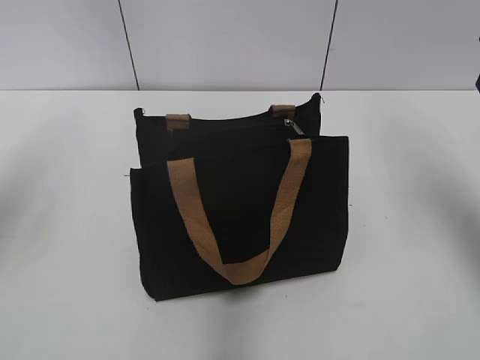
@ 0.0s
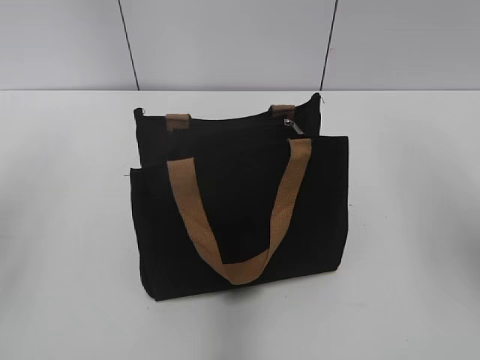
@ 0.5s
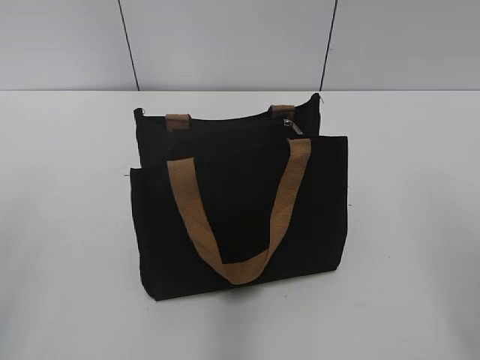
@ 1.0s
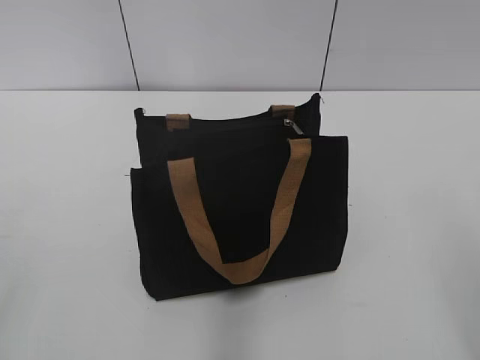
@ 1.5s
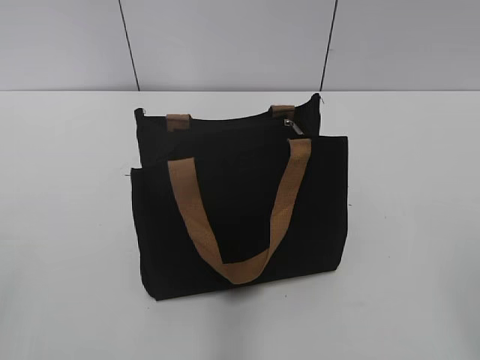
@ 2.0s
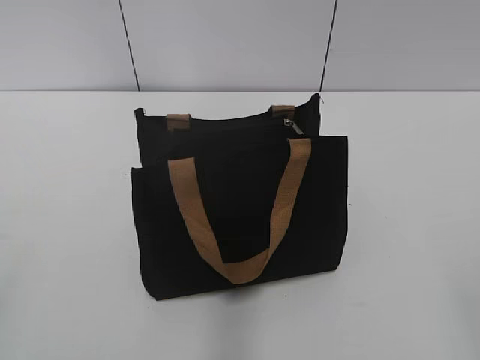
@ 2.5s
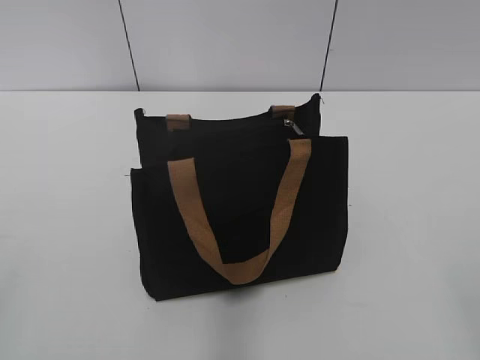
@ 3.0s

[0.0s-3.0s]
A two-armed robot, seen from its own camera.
0.0s to 1.5s: The right gripper heads backward, covering roughly 25 cm.

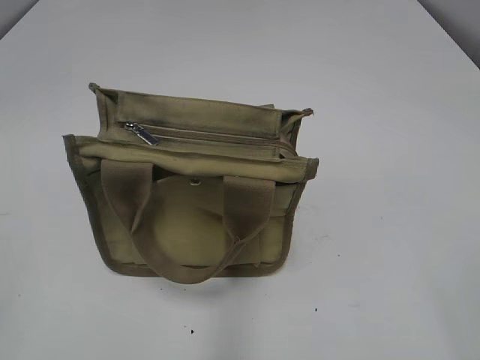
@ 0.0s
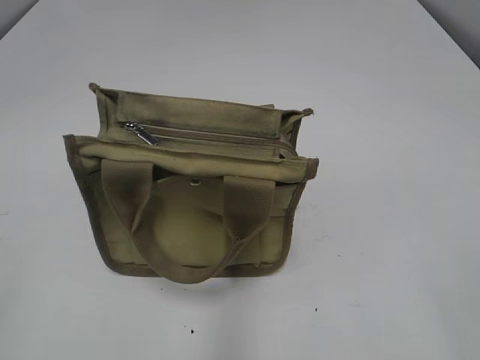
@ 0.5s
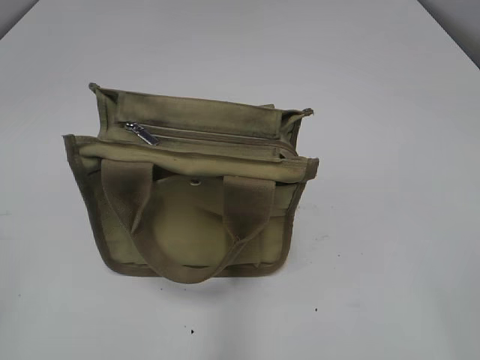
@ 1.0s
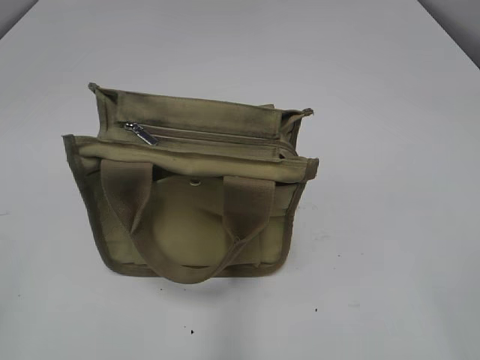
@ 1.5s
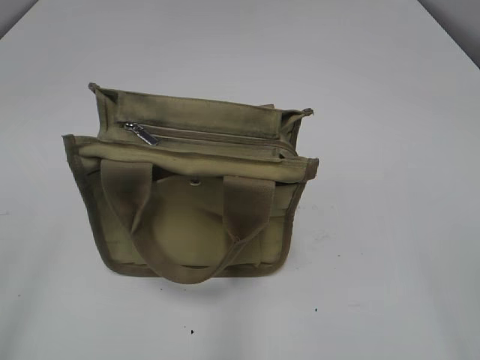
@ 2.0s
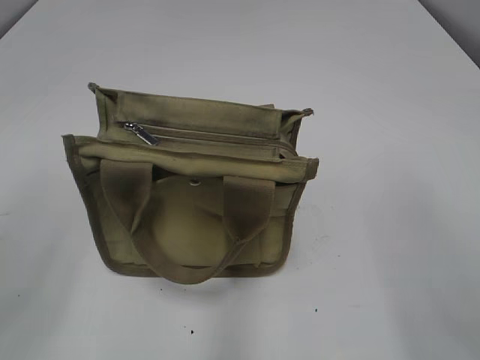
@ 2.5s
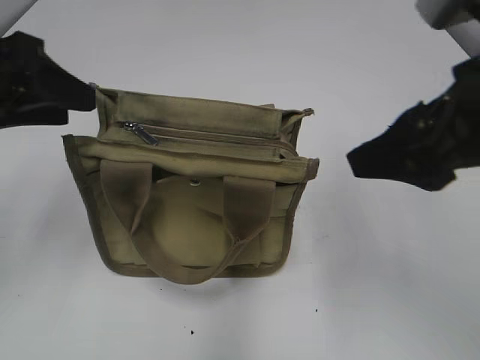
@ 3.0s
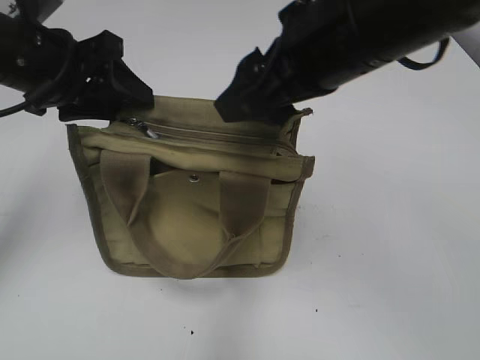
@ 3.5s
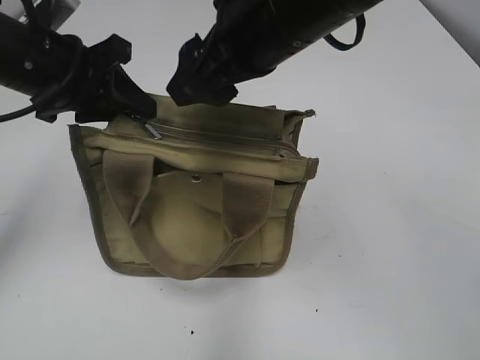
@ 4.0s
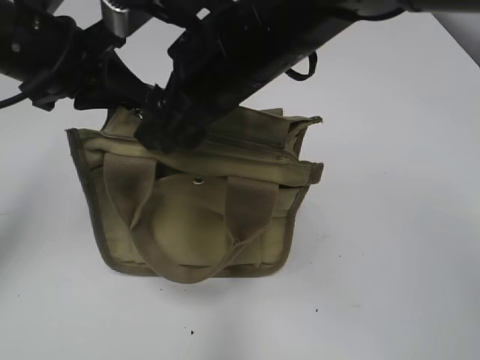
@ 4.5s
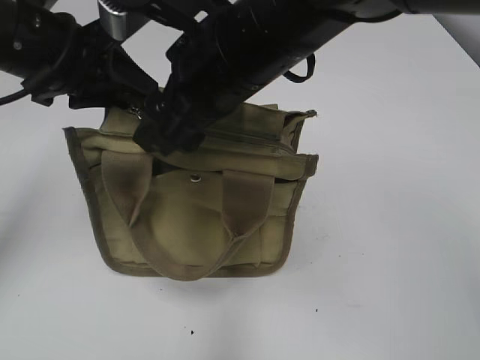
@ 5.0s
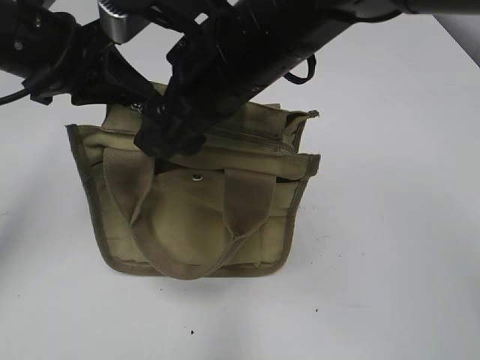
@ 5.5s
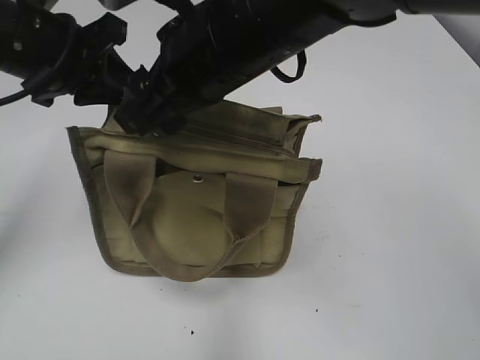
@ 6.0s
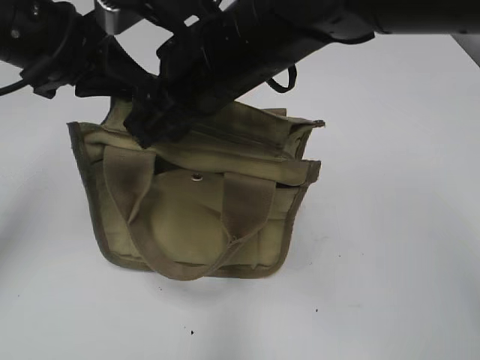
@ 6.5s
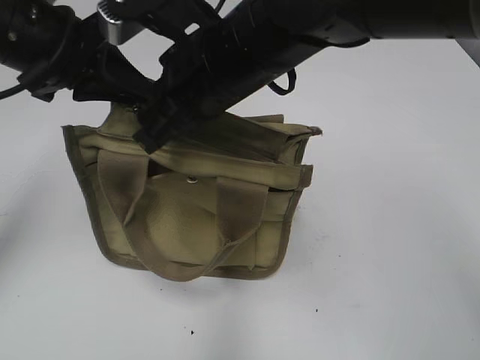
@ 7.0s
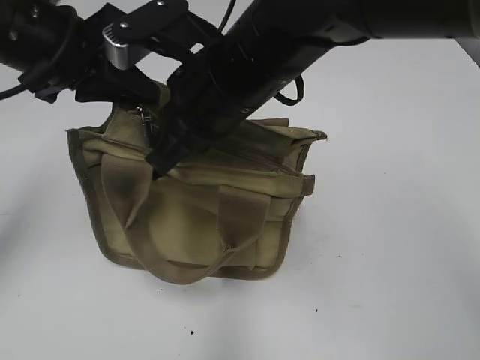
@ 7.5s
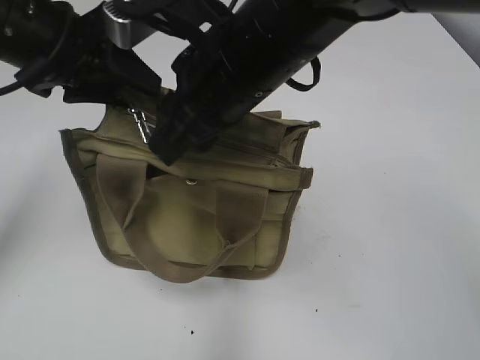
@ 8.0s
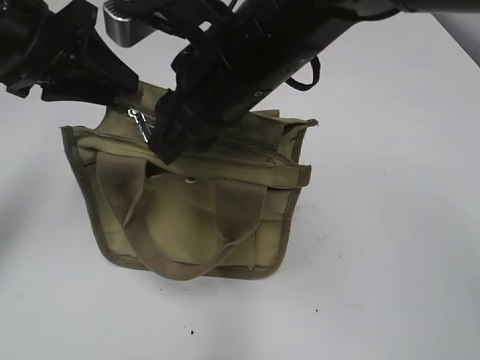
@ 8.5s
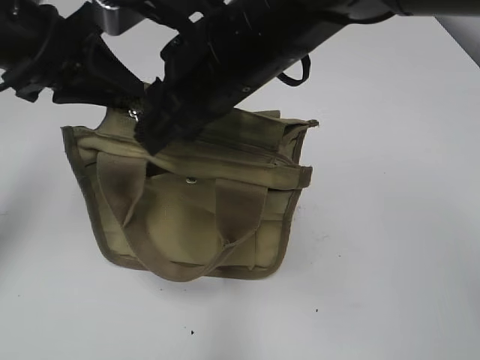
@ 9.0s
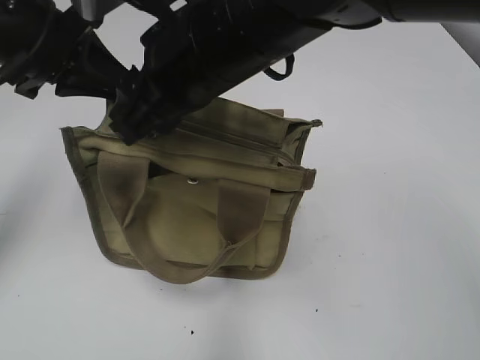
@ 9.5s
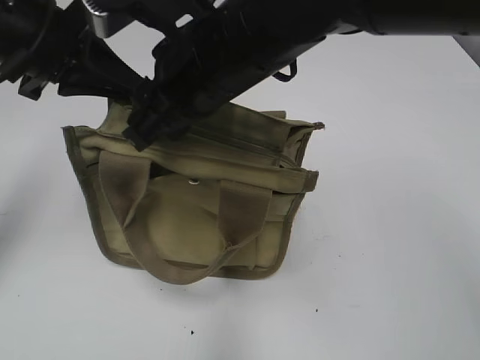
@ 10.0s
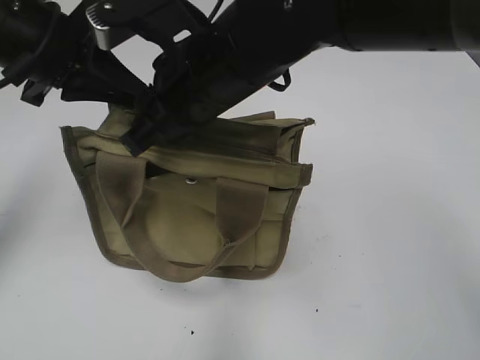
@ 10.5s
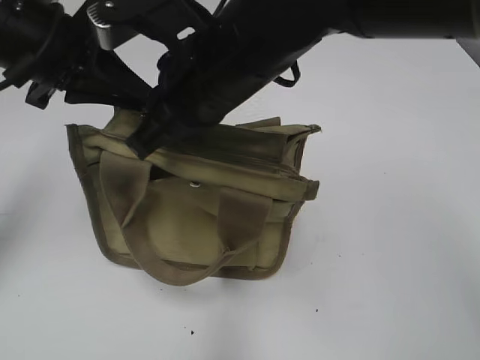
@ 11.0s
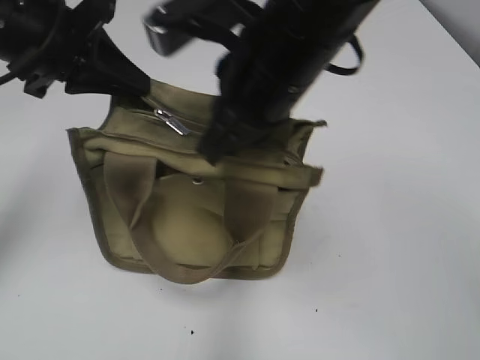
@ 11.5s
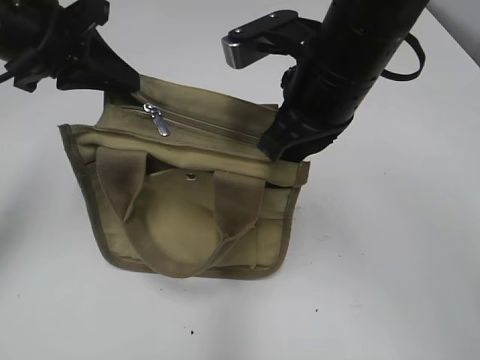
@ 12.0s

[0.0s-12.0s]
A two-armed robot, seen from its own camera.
2.0s to 4.0s: The left gripper moves forward, roughly 30 cm, and closes its fingers. The right gripper heads forward and to the left, covering some 35 cm.
4.0s to 6.0s: The left gripper closes.
6.0s to 8.0s: The left gripper opens its fingers. Meanwhile the right gripper closes up.
8.0s to 10.0s: The left gripper closes its fingers.
10.0s to 12.0s: The right gripper heads to the right, covering approximately 10 cm, and closes up.

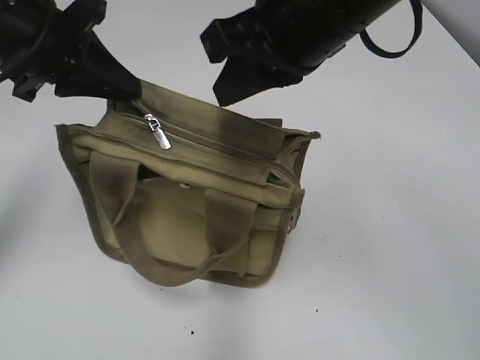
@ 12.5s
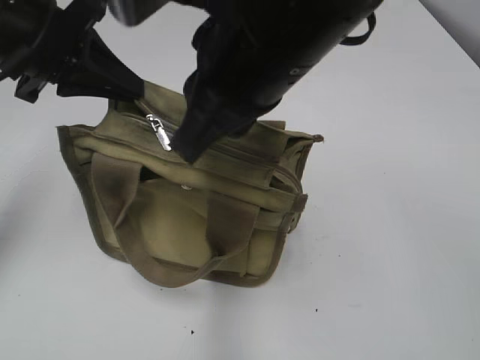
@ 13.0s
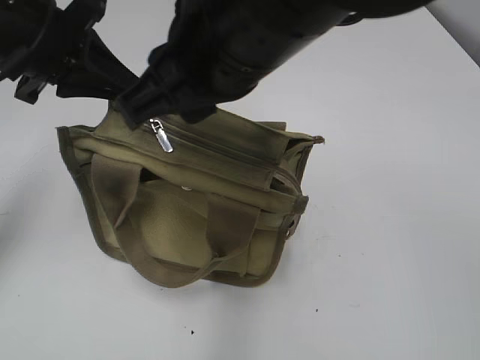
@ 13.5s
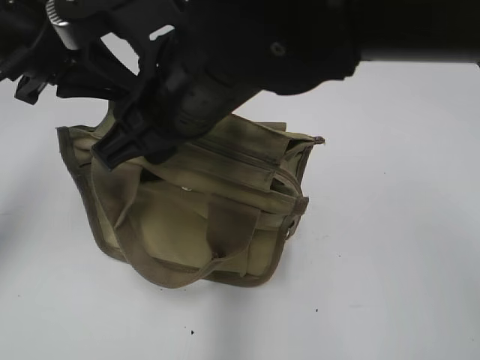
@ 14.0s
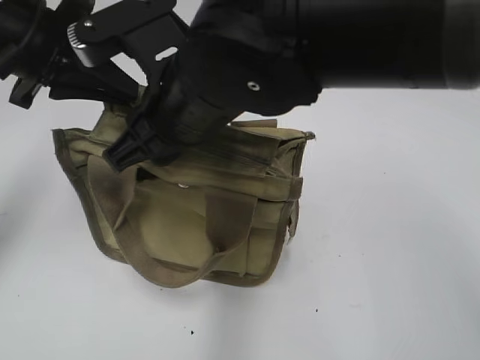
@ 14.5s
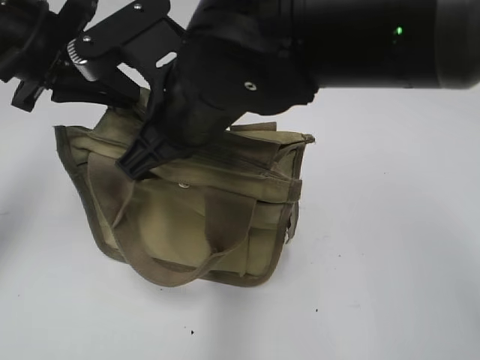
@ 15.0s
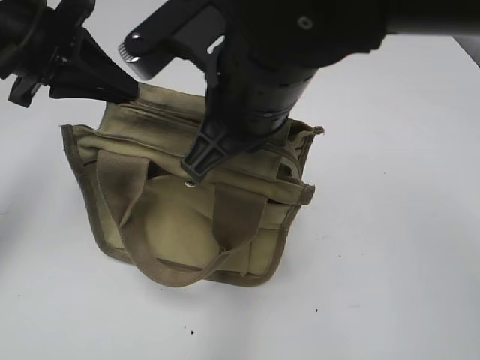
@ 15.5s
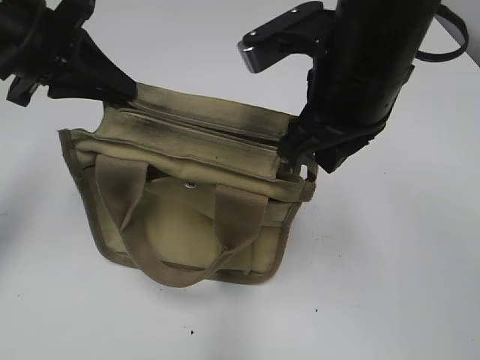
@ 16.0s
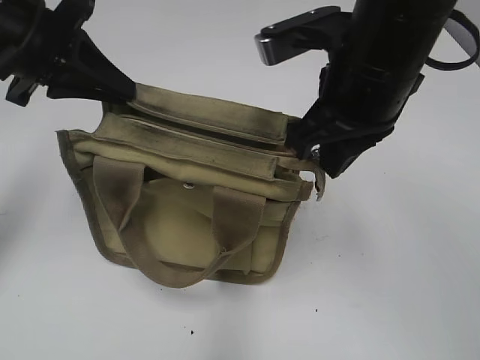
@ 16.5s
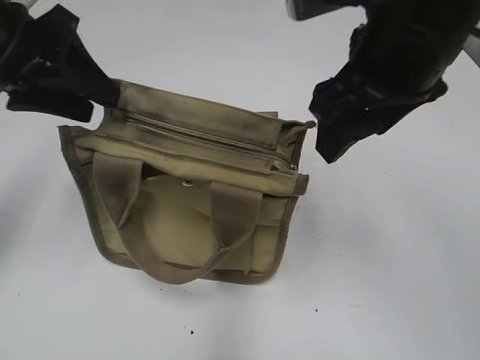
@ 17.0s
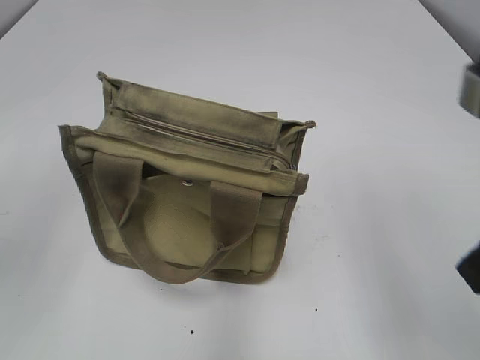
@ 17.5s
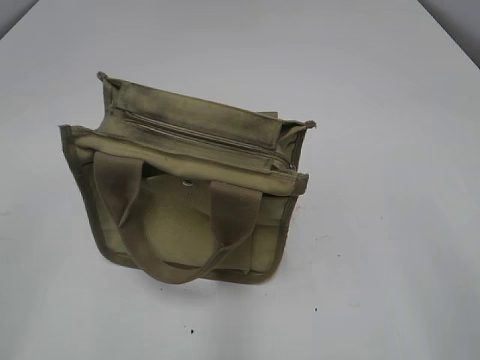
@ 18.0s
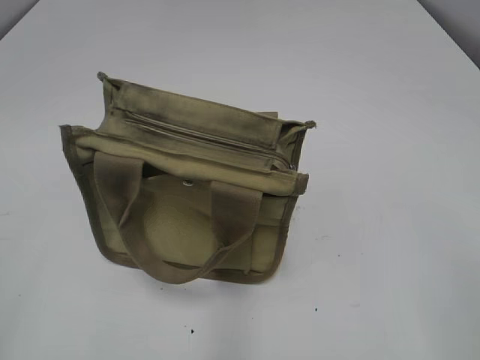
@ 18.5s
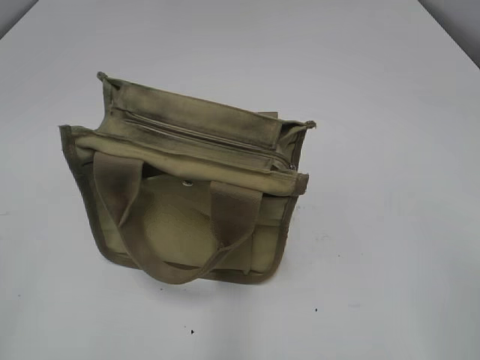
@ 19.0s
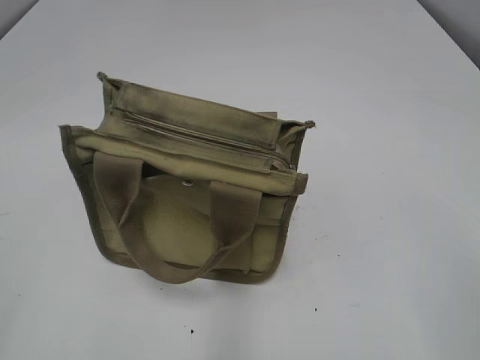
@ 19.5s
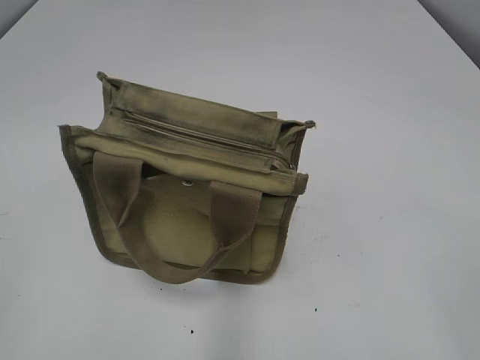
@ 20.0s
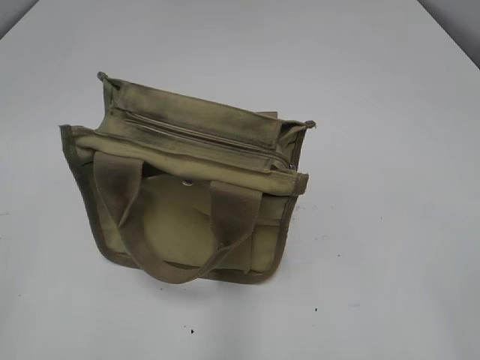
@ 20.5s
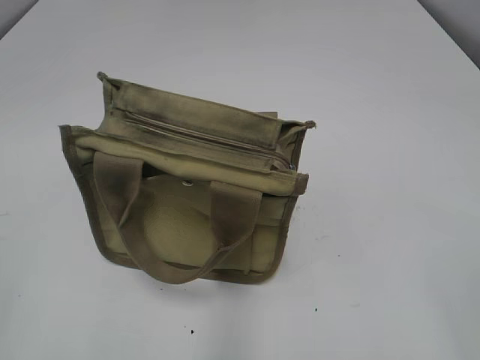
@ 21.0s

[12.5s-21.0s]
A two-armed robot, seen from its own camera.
Step, 12.5s to 16.5s: Pull open the zipper with your right hand.
12.5s to 14.5s: The right gripper is displaced to the left and downward by roughly 10 cm, and opens its fingers.
14.5s to 16.5s: The right gripper goes approximately 15 cm to the right, and closes.
16.5s to 19.0s: The right gripper moves backward and to the right, about 30 cm, and opens up. Meanwhile the left gripper heads backward, covering approximately 30 cm, and opens its fingers.

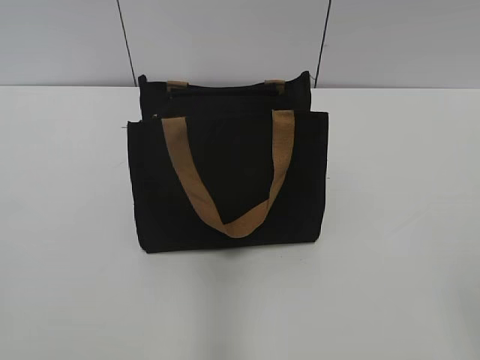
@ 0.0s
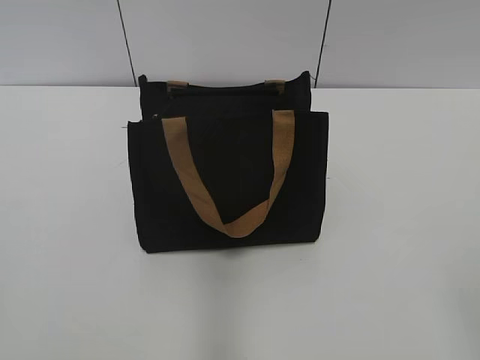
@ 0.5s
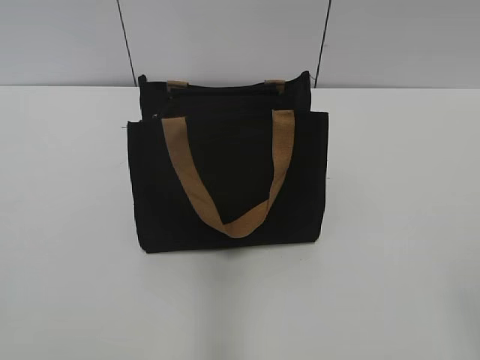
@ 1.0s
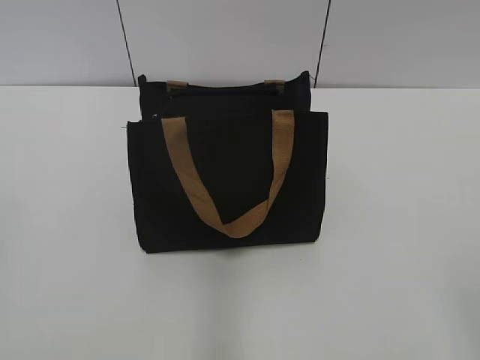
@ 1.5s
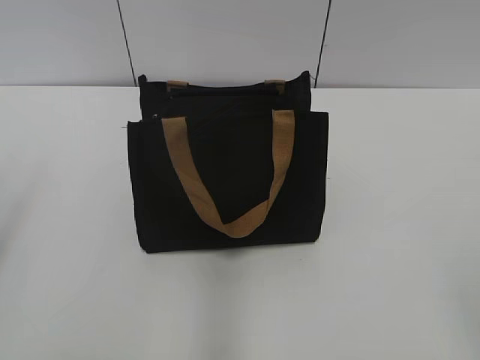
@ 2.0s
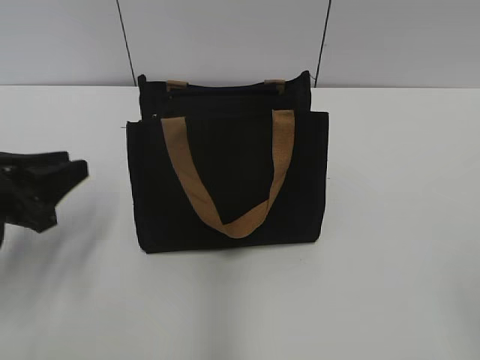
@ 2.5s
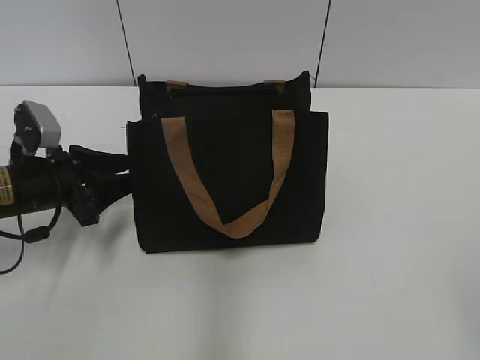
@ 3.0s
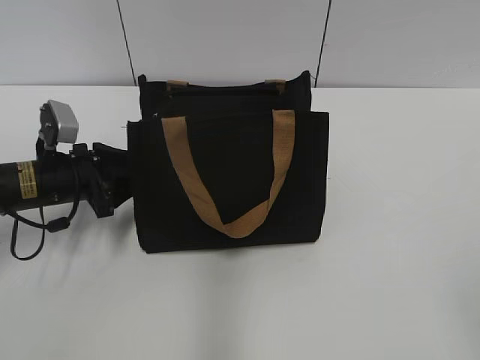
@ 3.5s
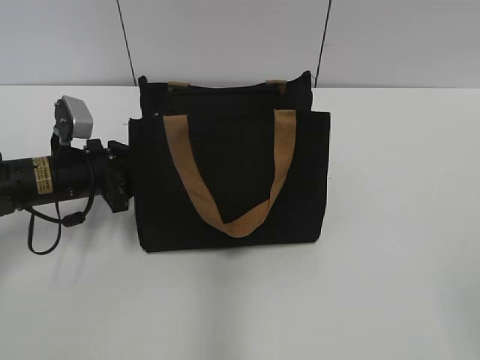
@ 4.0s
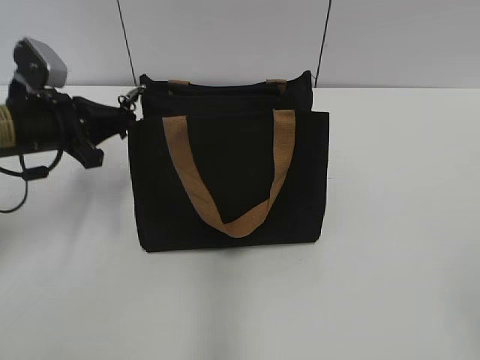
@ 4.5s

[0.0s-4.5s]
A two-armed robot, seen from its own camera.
2.0s to 4.5s: The left gripper is displaced forward and downward by roughly 25 cm, and closes.
